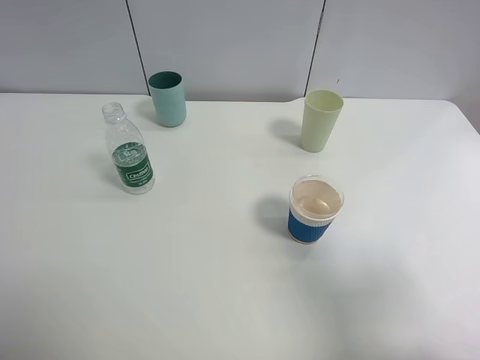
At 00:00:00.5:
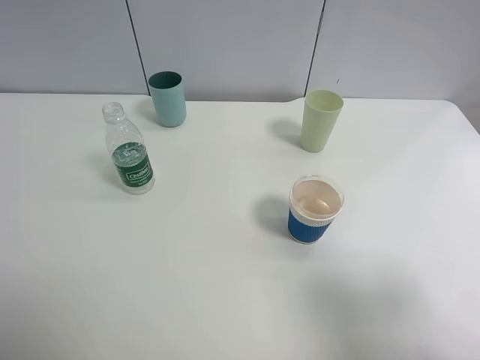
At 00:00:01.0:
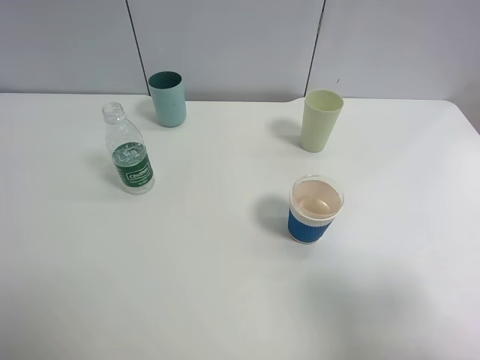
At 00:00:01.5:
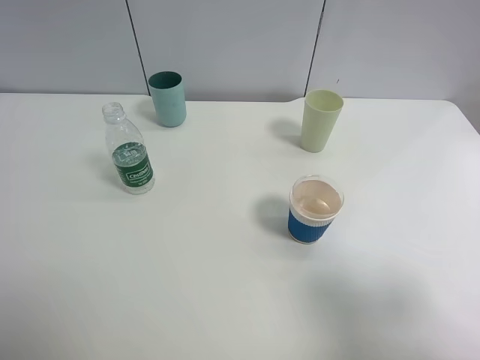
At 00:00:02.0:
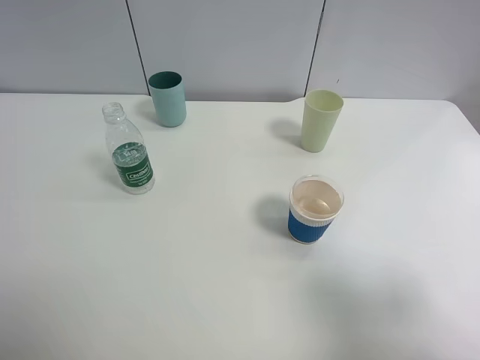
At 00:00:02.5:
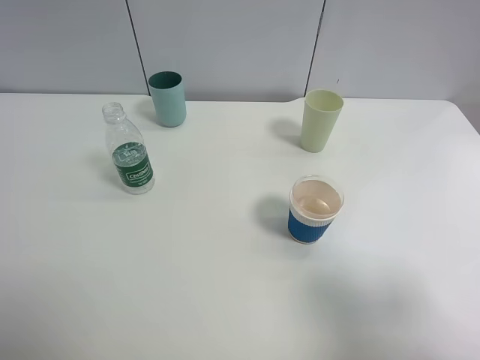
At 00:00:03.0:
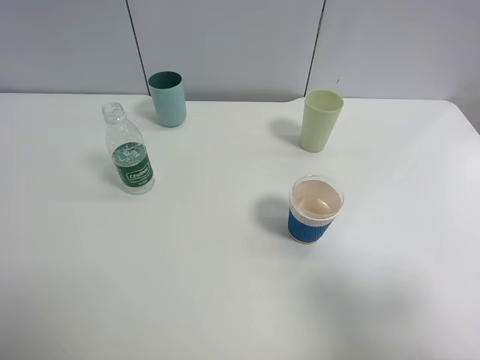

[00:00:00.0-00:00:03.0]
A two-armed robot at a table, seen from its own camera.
Task of the whole recording: use a clamp to hold the bottle of the drink, pour the beverage into a random cup, then clamp the cup containing the drink and pour the drink into another random cup.
00:00:01.5 to 00:00:03.0: Neither gripper changes place.
